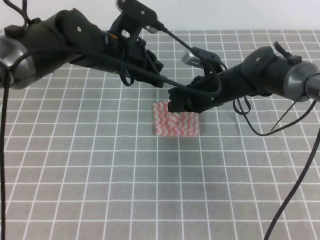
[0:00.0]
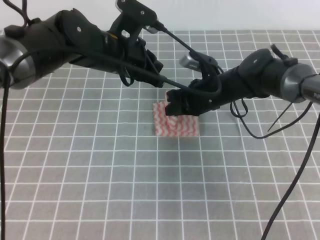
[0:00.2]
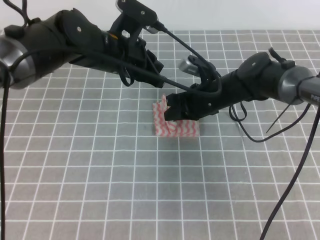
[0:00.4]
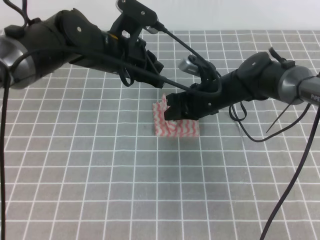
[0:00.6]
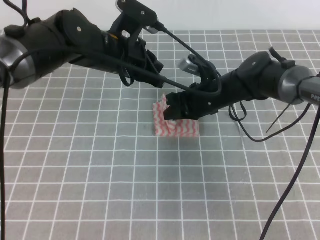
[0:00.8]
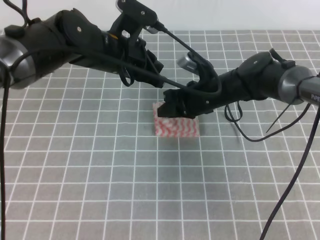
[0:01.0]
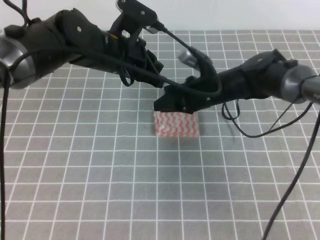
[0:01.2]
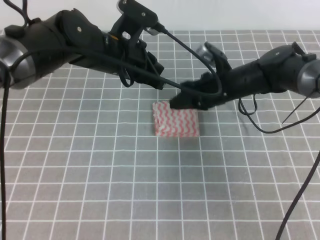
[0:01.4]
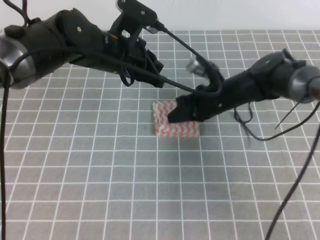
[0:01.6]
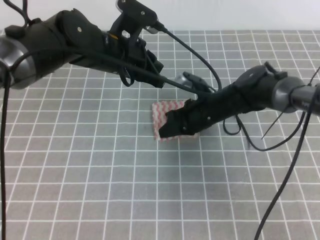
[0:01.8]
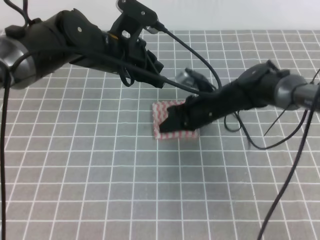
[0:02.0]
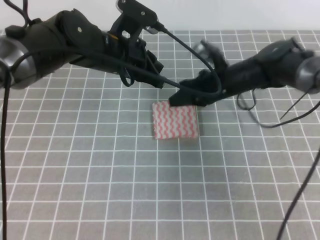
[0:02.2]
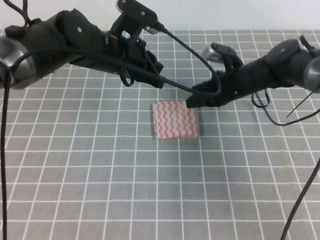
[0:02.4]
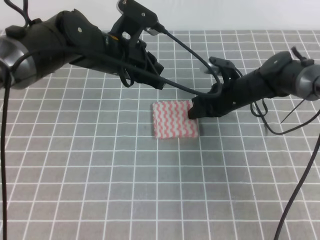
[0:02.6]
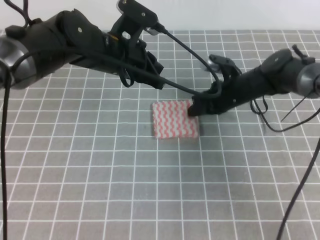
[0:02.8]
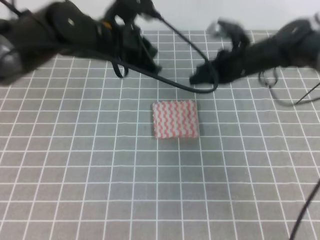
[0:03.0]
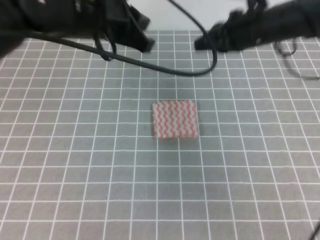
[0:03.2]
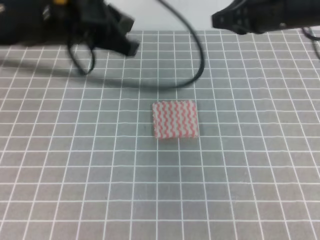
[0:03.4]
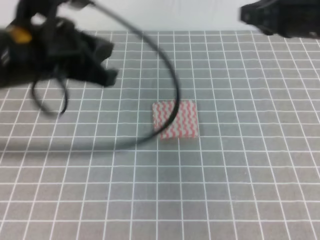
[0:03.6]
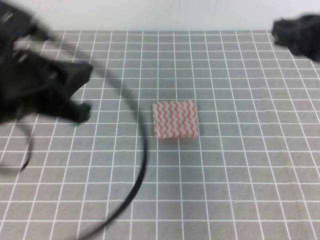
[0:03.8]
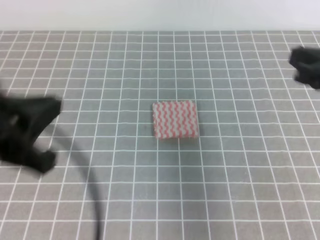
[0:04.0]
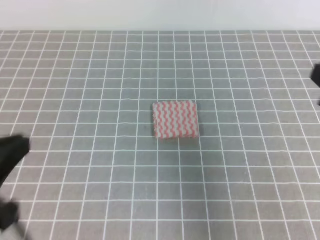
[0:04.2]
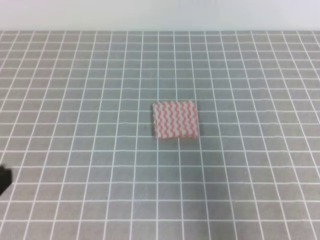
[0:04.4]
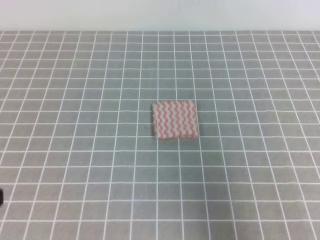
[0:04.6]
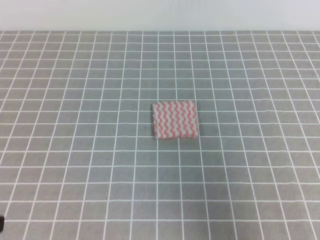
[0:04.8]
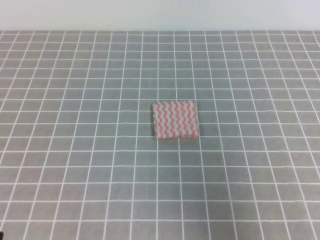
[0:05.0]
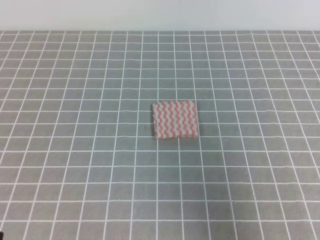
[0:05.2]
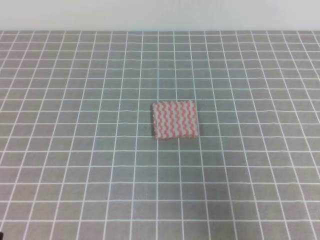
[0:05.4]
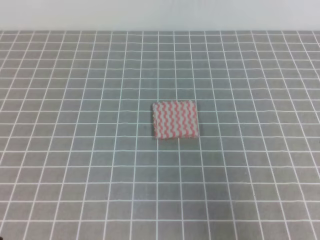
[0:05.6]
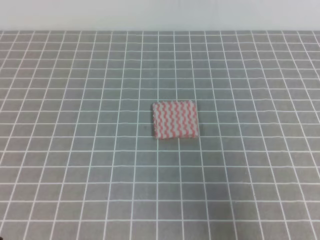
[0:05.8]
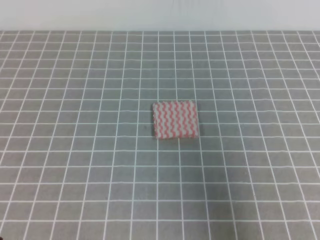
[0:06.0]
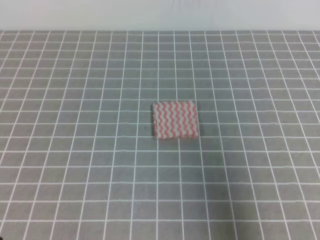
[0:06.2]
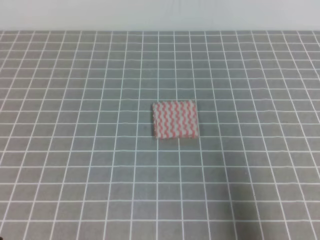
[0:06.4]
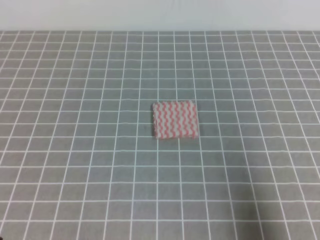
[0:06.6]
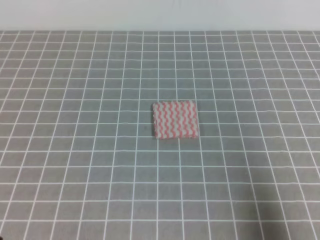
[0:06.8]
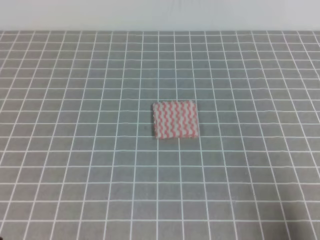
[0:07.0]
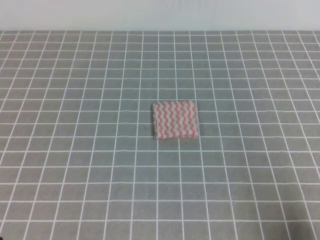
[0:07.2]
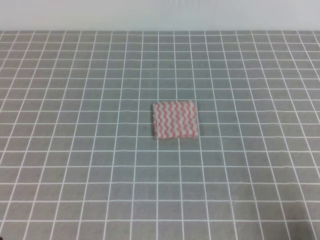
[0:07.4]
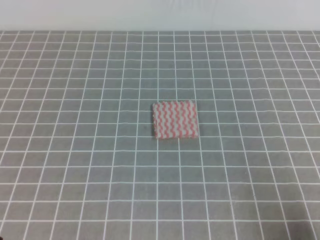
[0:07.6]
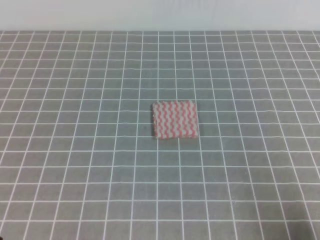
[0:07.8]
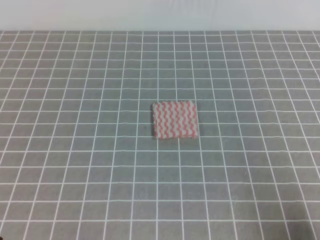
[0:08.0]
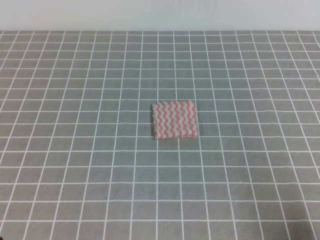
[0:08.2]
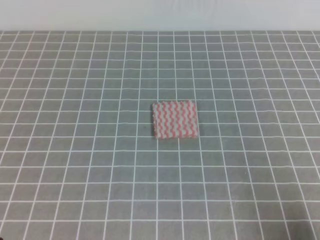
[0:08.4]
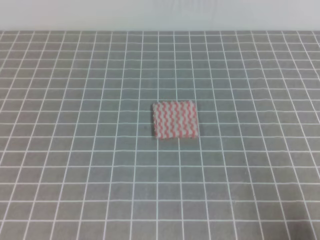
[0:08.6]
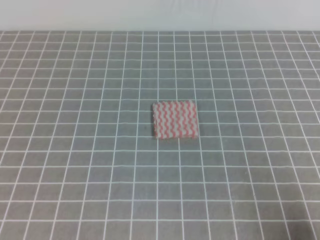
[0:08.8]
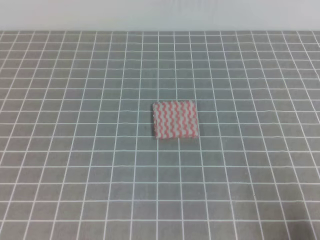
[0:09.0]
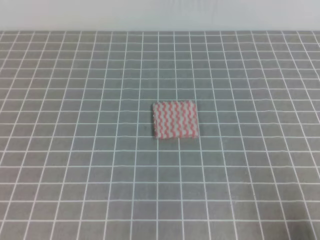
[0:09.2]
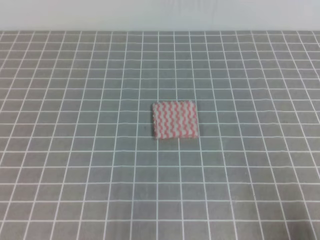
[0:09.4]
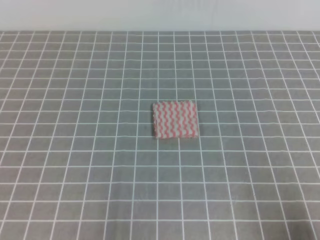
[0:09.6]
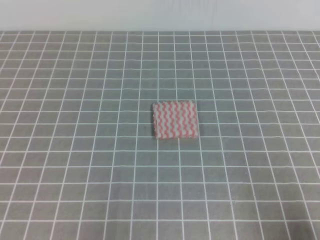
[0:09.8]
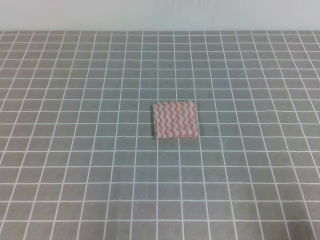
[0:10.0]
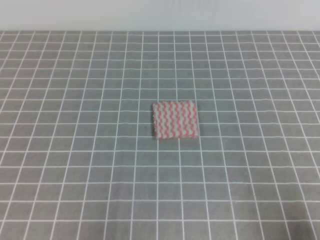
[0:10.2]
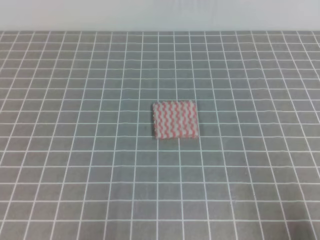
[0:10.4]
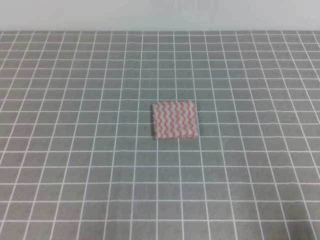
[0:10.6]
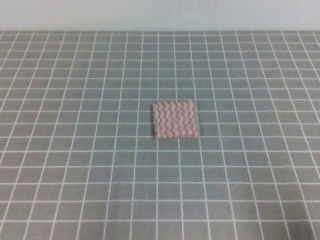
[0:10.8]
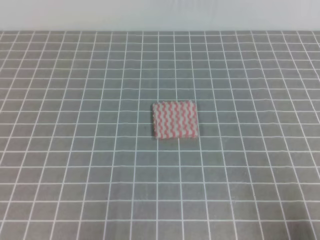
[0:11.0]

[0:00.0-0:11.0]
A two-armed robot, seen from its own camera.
0:00.0 to 0:01.6: The right gripper opens and closes again.
0:01.6 to 0:03.2: The right gripper travels upward and to the right by roughly 15 cm. Meanwhile the left gripper is displaced upward by about 5 cm.
0:03.2 to 0:04.8: The right gripper moves backward, some 30 cm; the left gripper travels backward and to the left by approximately 35 cm.
0:06.2 to 0:07.8: The right gripper heads downward, covering some 15 cm.
